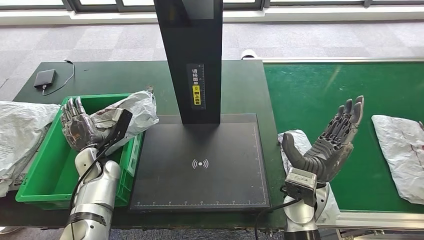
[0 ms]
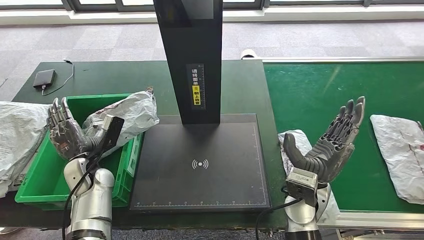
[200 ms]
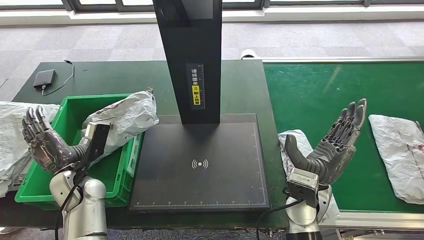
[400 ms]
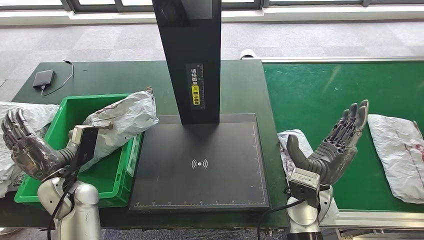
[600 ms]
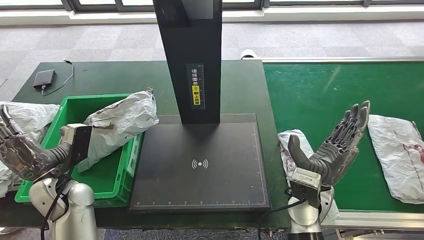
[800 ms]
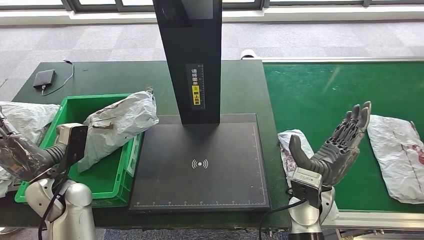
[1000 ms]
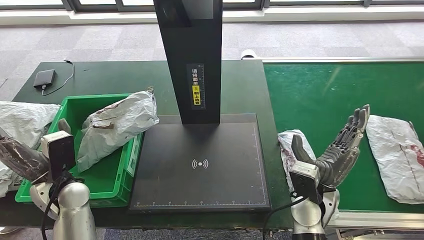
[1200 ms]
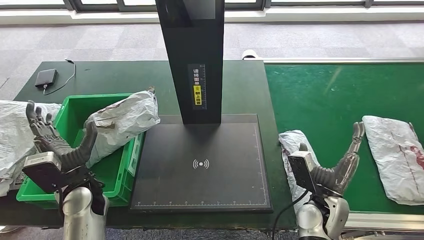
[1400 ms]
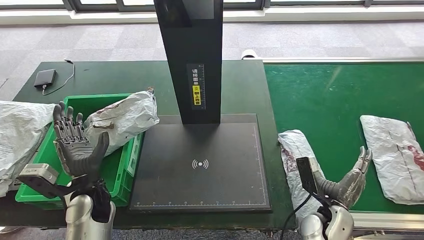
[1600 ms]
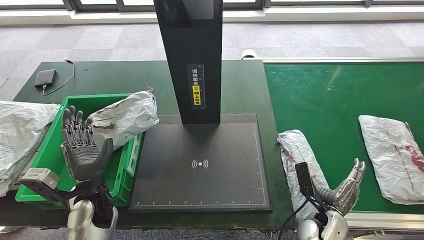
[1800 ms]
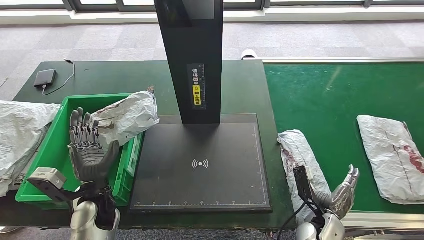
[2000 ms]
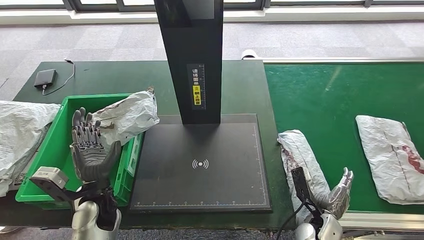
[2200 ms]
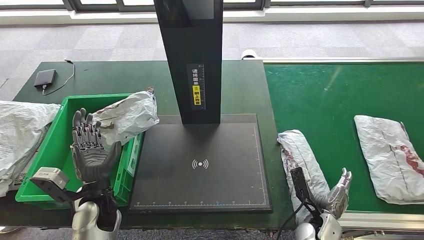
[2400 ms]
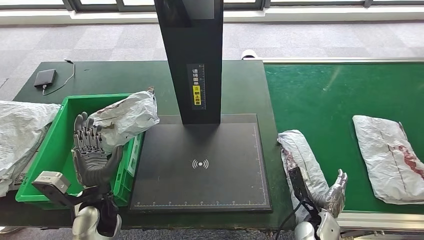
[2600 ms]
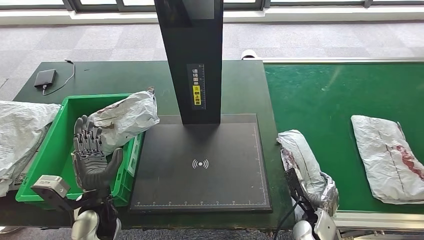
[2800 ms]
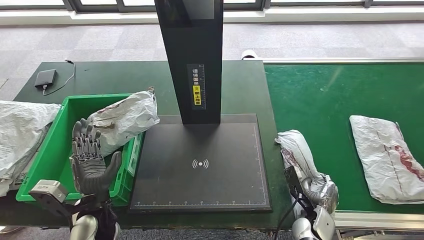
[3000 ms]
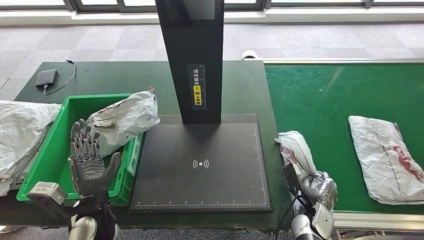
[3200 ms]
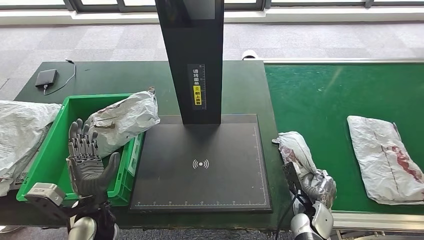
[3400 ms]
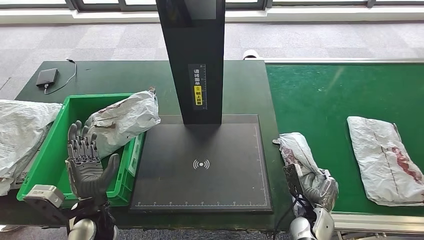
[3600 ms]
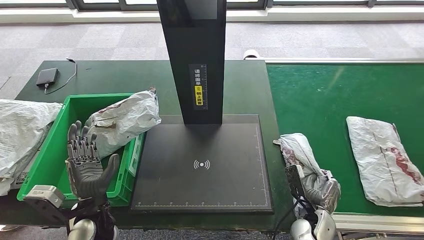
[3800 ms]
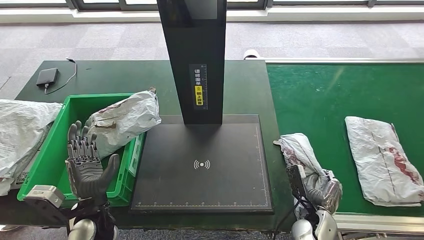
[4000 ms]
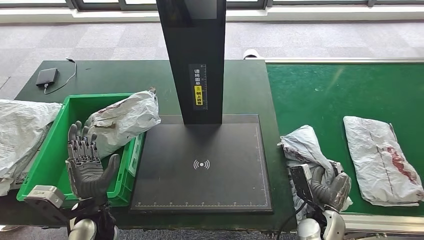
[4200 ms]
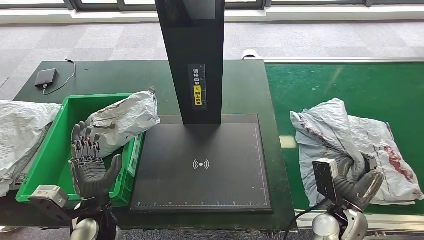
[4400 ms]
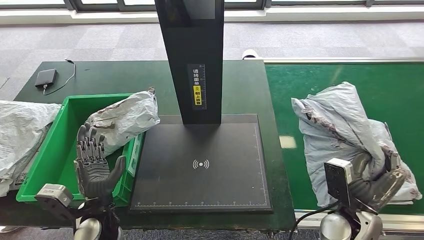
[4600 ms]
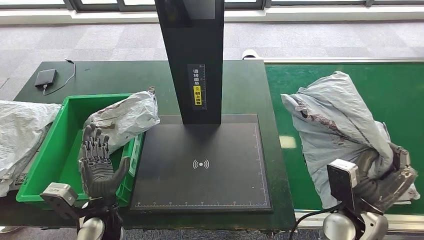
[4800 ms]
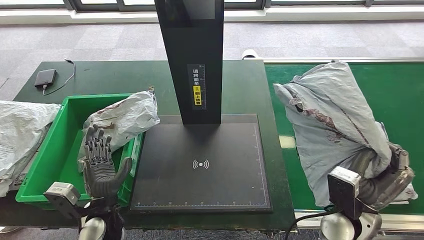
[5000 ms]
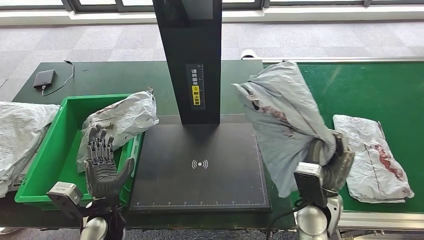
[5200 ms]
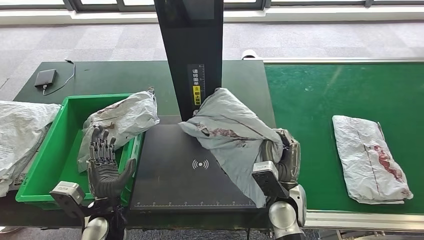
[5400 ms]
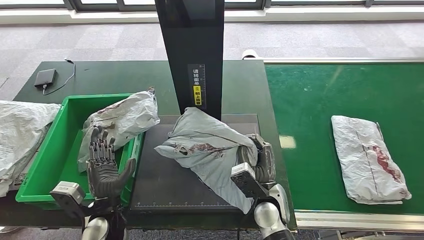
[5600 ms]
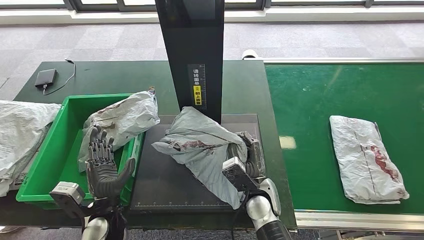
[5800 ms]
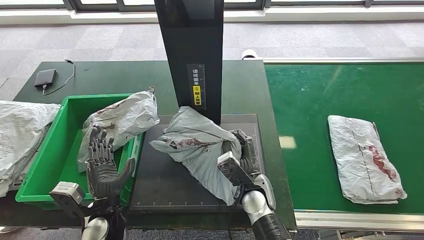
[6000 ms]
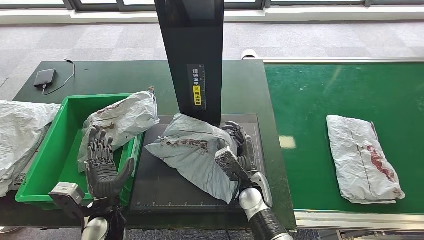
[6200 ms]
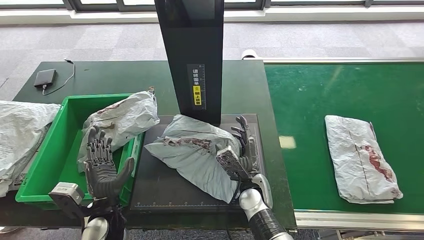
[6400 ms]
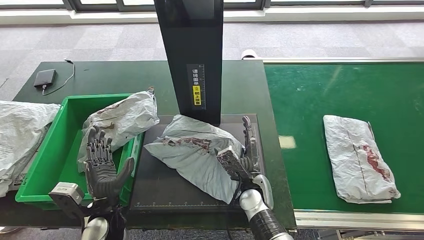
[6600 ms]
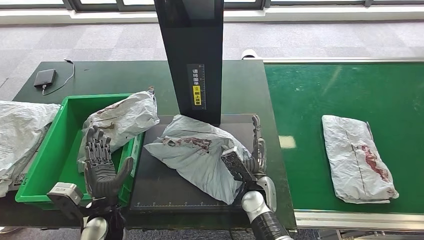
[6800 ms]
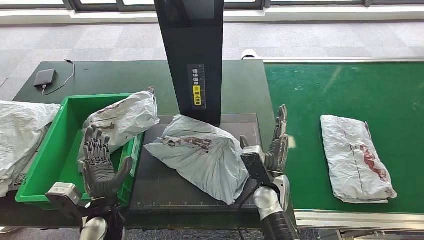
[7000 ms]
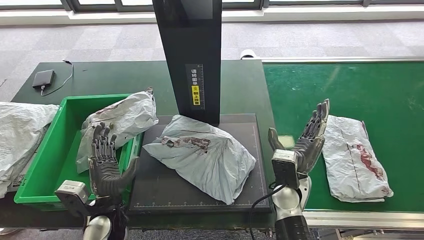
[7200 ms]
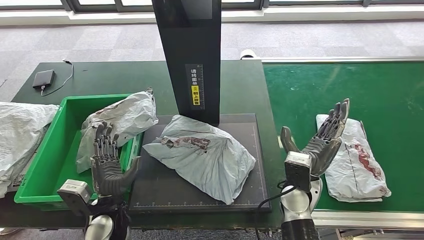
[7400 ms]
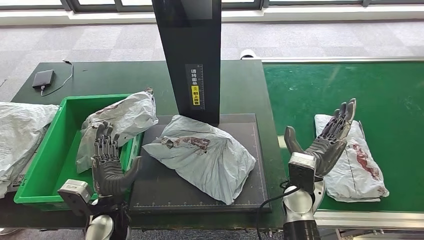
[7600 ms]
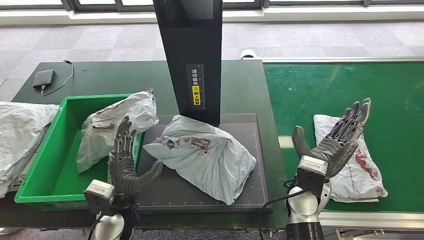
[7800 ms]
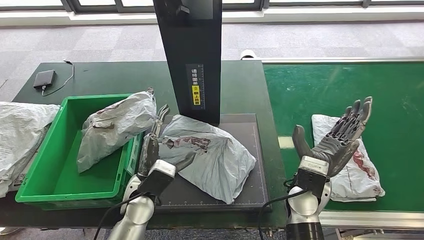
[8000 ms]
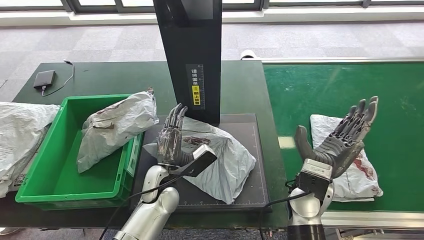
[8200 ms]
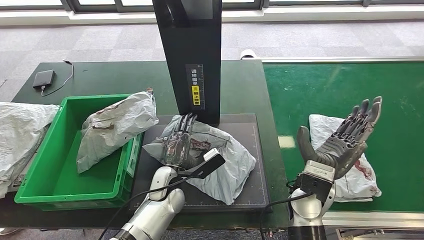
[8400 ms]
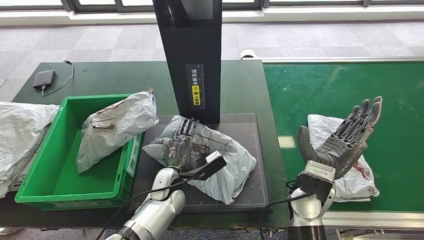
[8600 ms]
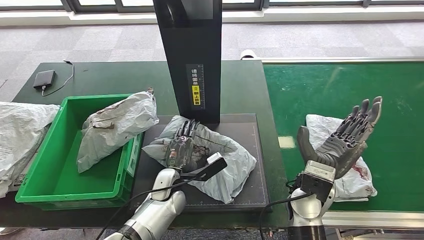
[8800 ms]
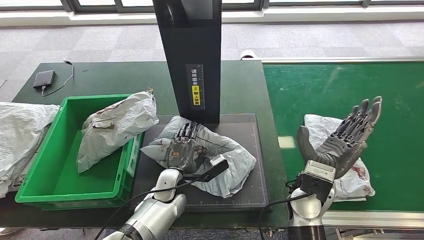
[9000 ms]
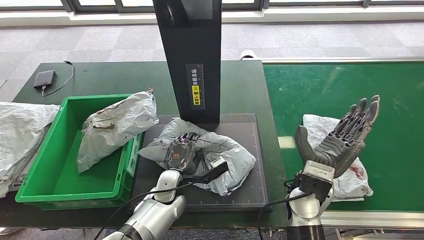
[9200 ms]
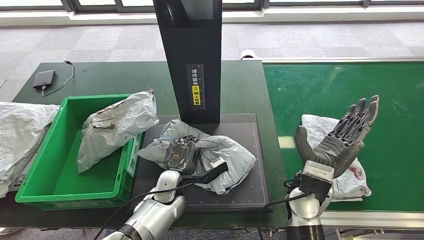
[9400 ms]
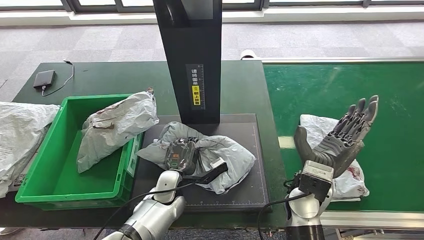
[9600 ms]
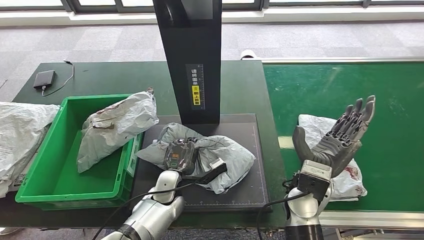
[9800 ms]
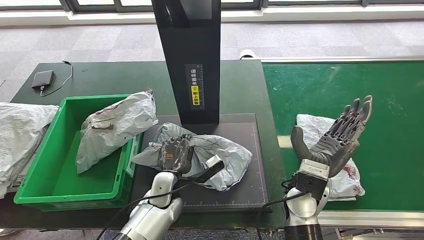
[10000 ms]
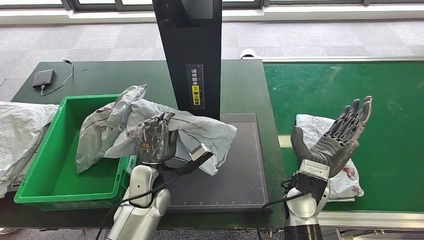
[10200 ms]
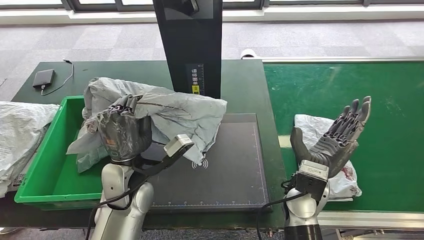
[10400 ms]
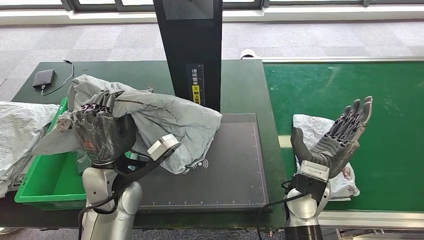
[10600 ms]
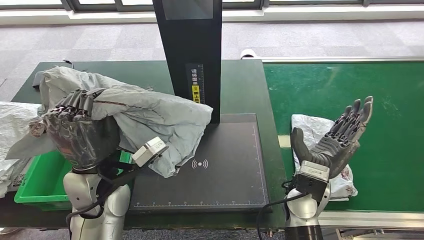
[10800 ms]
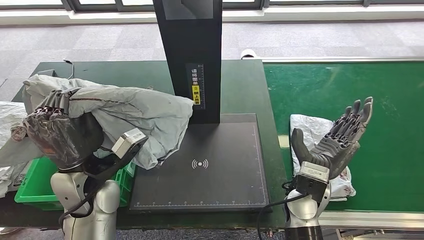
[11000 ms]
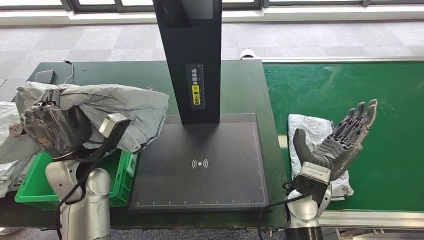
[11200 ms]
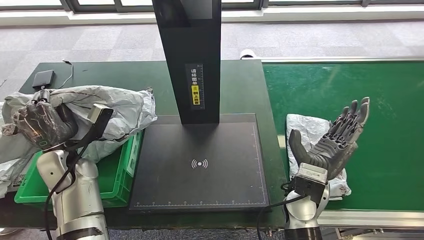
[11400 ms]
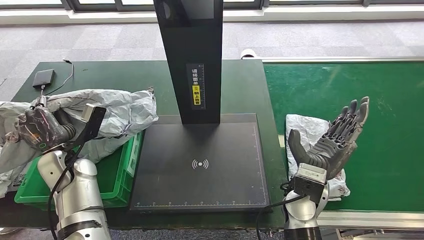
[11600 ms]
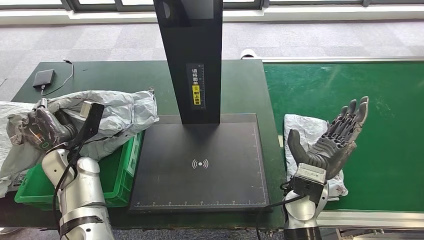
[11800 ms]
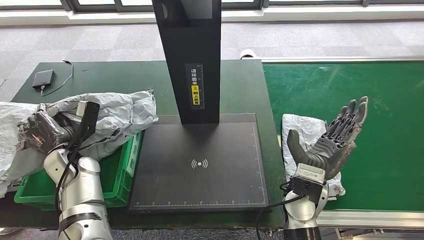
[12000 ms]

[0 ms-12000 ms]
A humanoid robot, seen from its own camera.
Step, 0 ms to 4400 ms: Pick up the parcel from the conveyor belt.
Step, 4600 ms to 7800 ms: Place the parcel onto the inbound machine.
Step, 8000 ms to 11200 ms: Pick up the parcel from the inbound machine.
0 ms to 1600 ms: The right hand heads downward and to the right, covering some 15 cm. Meanwhile the left hand is displaced backward by approximately 10 cm.
1600 ms to 3000 ms: The right hand is displaced downward by about 5 cm.
3000 ms to 4400 ms: The right hand shifts some 10 cm upward.
7600 ms to 9000 ms: The left hand moves to the right and forward, some 15 cm.

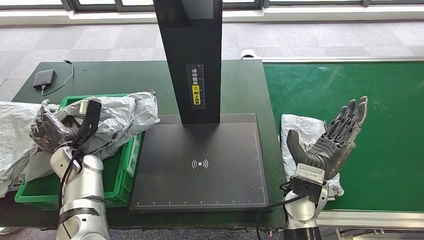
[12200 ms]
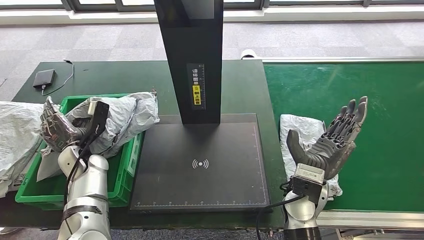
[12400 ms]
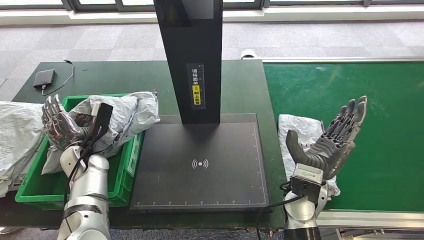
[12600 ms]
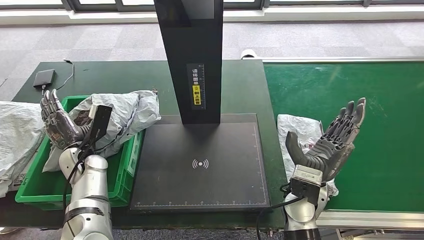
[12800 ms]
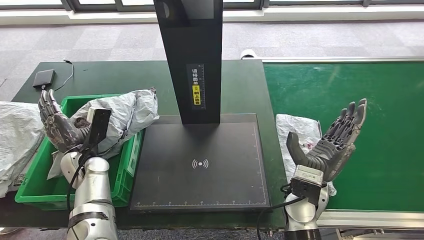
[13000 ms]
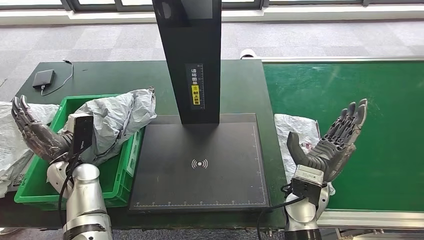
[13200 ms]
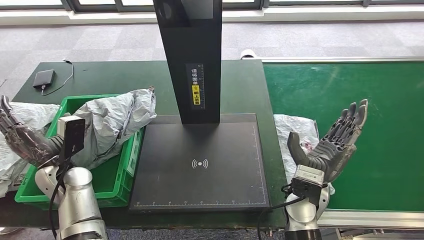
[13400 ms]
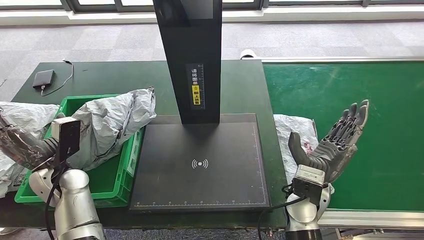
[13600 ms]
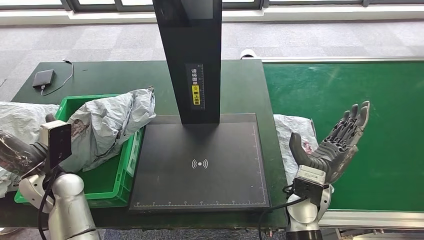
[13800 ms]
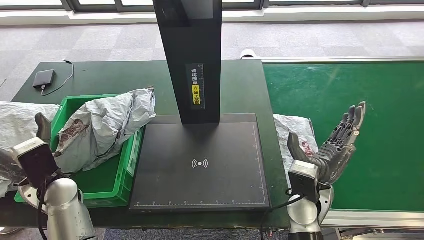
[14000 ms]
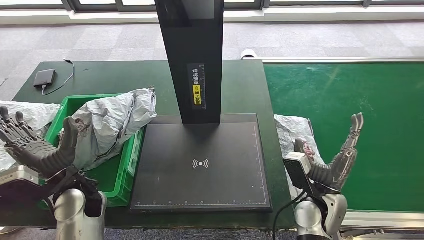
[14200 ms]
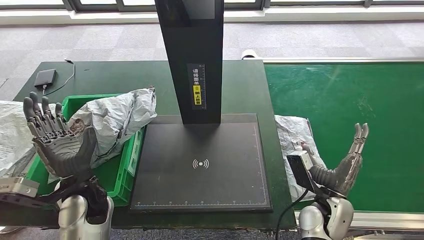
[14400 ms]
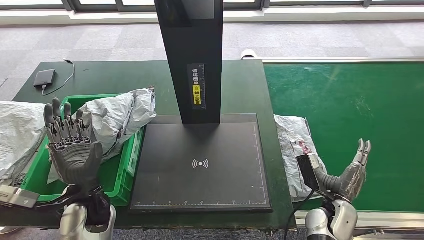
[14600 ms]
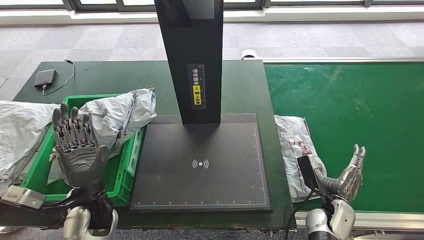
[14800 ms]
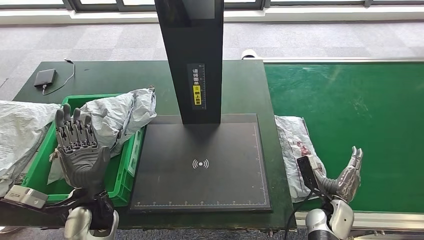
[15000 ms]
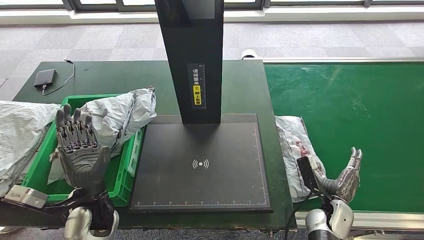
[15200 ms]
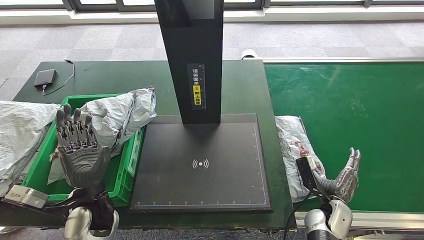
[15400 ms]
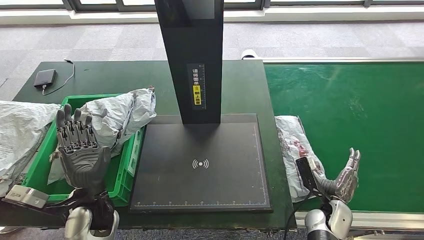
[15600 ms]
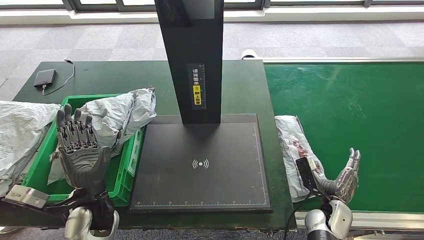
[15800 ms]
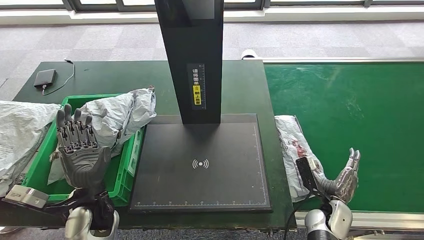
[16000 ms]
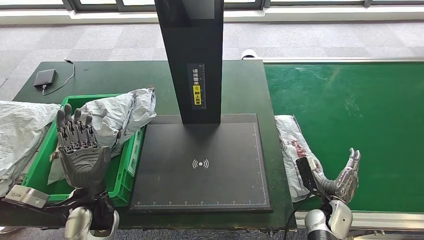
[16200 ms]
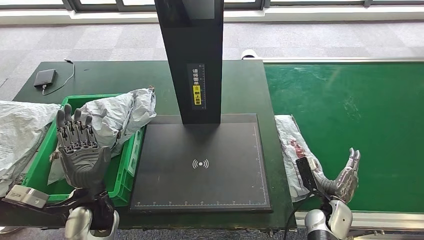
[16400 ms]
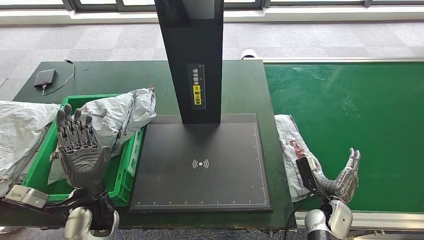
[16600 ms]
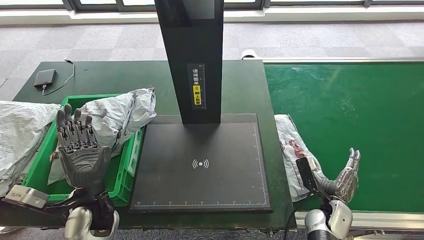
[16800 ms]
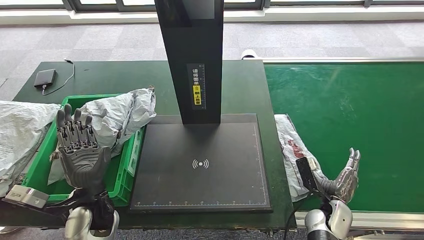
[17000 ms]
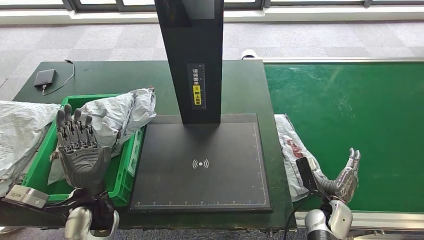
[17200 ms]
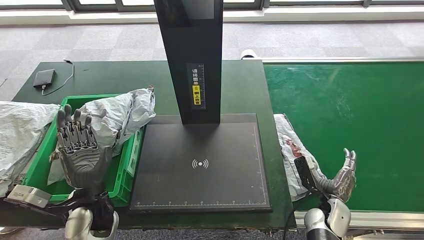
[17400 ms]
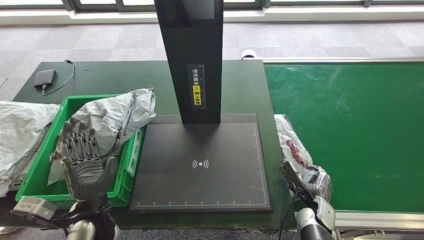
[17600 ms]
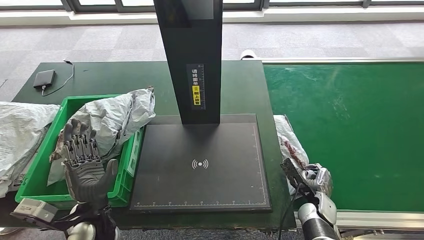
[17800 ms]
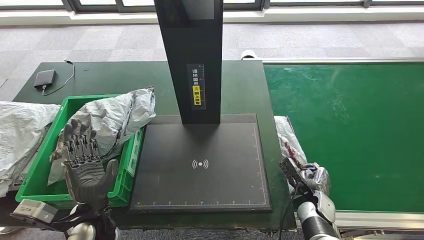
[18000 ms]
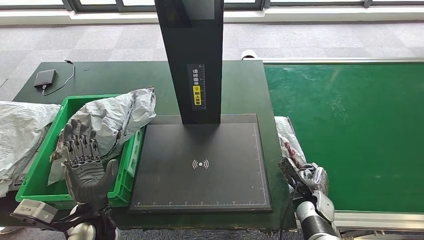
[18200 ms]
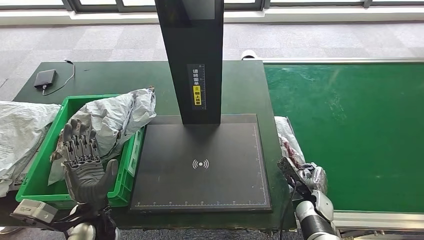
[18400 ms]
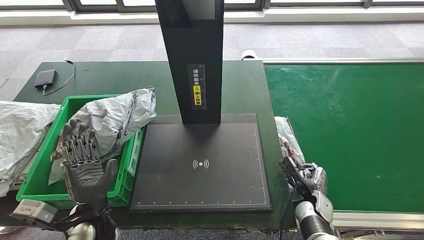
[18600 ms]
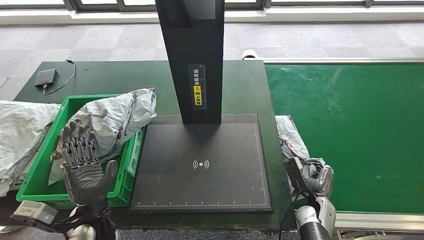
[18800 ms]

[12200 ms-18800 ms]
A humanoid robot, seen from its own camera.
Step, 12200 ms to 15600 ms: Place the parcel into the delivery box.
12200 ms to 13800 ms: The left hand is displaced backward by approximately 5 cm.
13800 ms to 15400 ms: The left hand shifts some 10 cm to the right. The right hand goes roughly 15 cm downward and to the right.
15400 ms to 17200 ms: The two hands keep their place.
